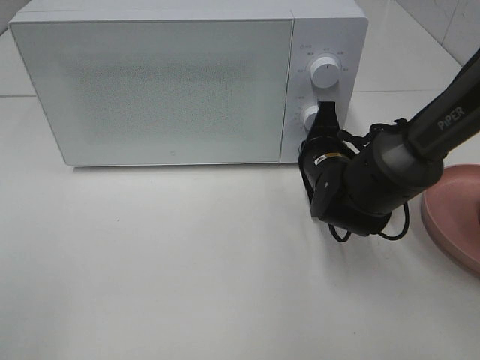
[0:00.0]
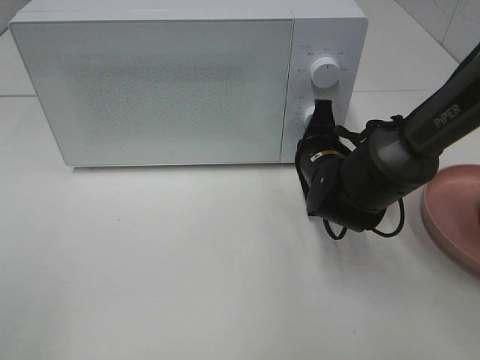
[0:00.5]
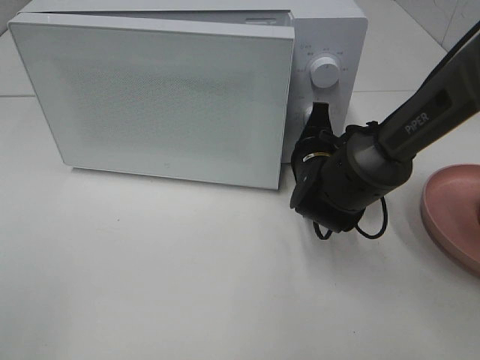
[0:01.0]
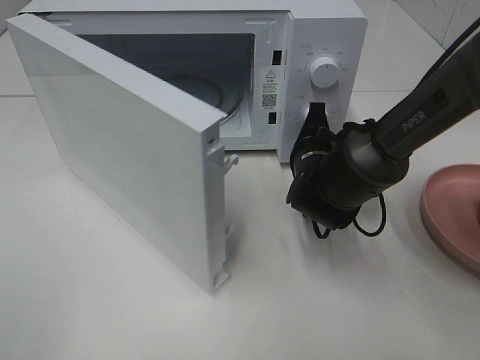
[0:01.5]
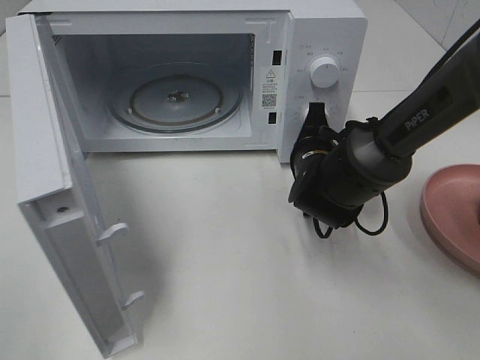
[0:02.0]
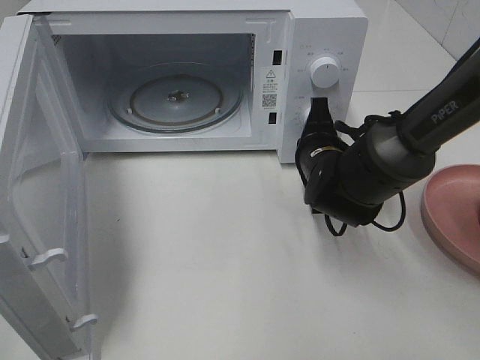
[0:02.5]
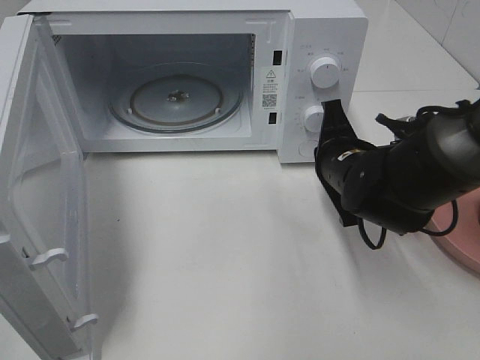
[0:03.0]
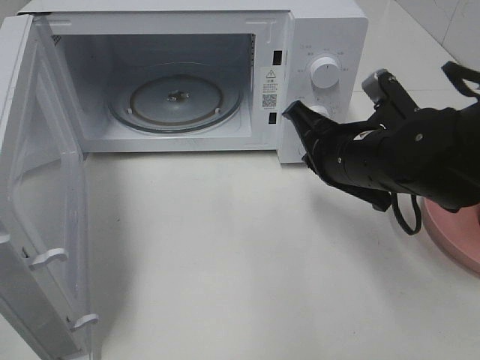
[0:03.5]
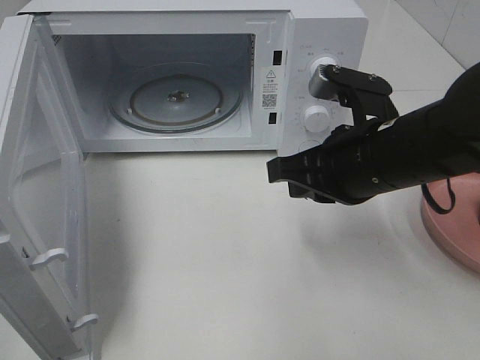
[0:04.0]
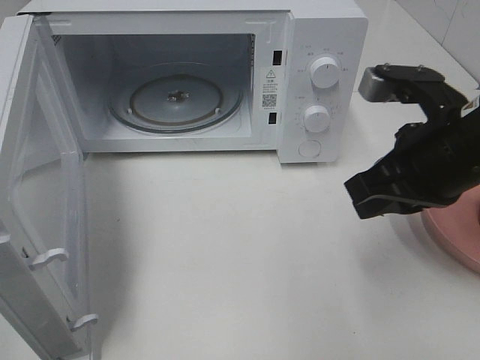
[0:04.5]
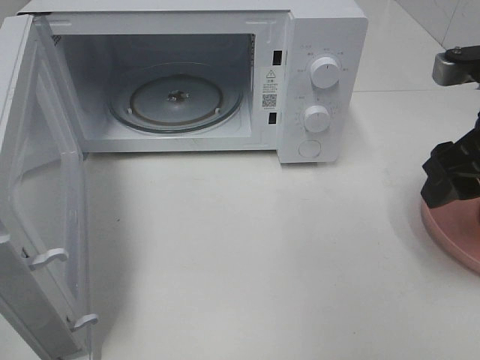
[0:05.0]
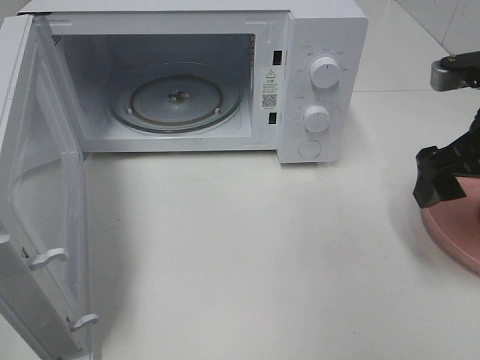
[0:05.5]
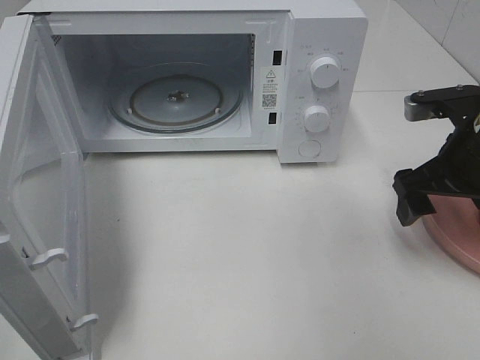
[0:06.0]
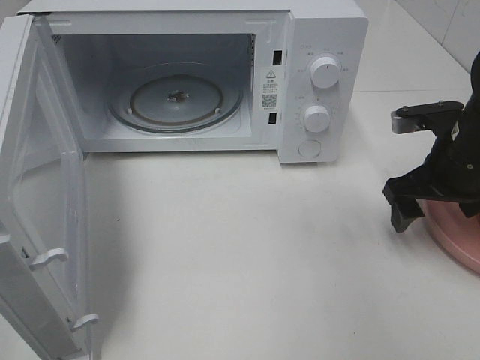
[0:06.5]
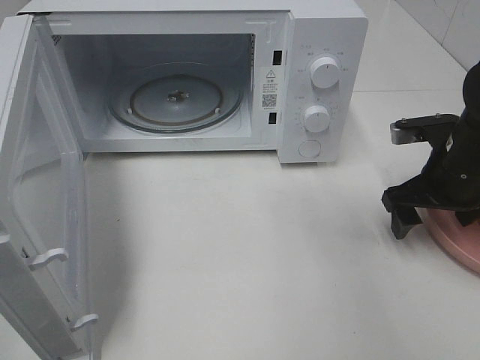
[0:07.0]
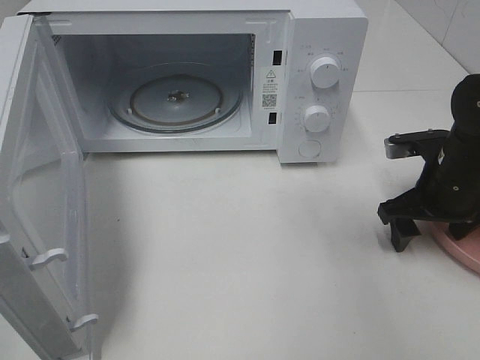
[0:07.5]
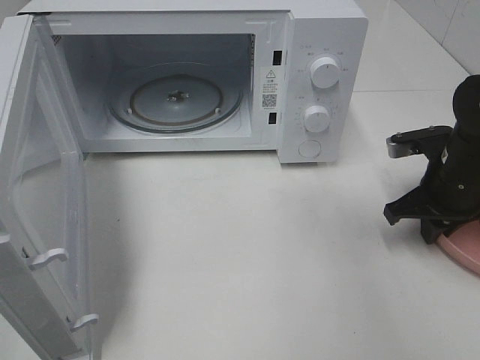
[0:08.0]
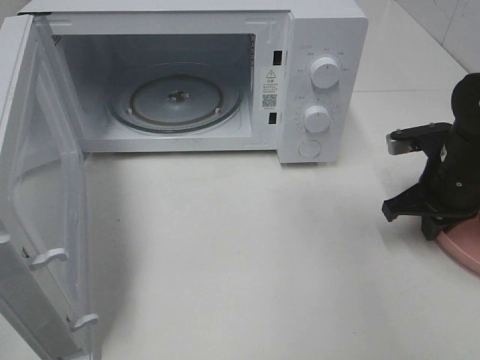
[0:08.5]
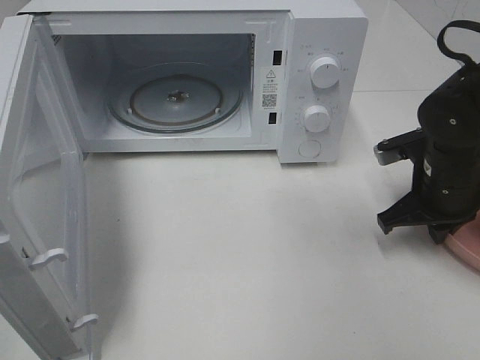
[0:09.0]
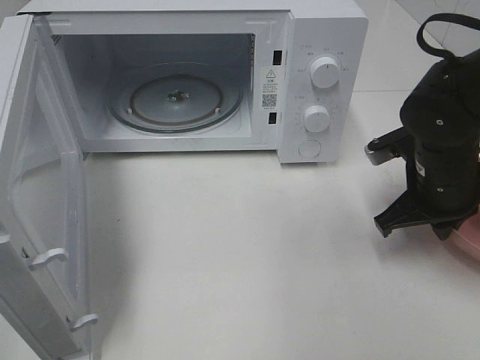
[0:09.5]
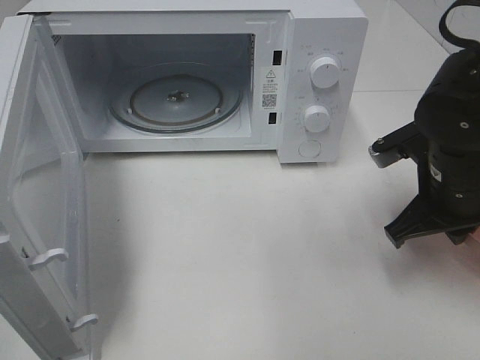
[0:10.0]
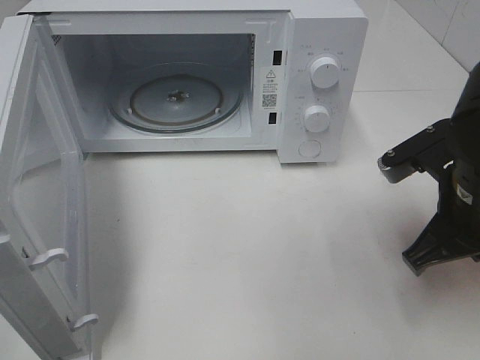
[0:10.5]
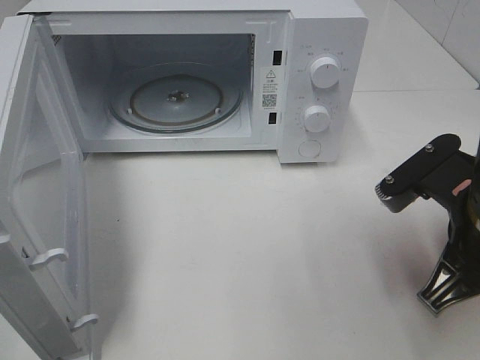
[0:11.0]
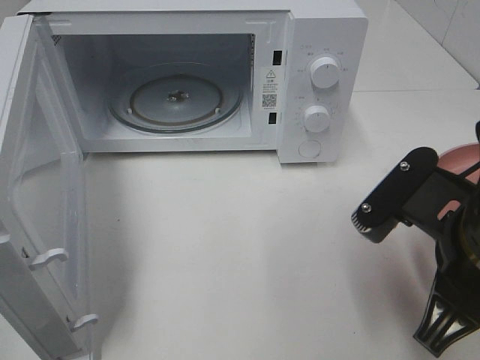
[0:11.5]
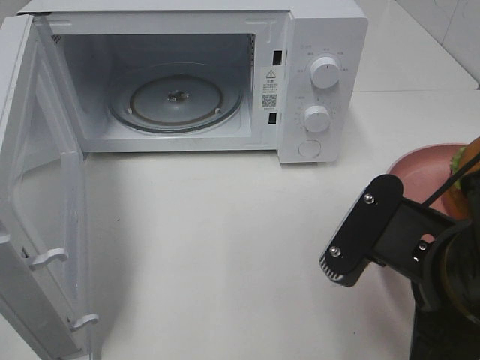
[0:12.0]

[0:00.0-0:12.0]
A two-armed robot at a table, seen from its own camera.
Task of the whole recording: Heat the burger.
Step, 0.0 to 2.5 s: Right hand: press the switch.
Step, 3.0 to 8.0 s: Right hand: grab the plate with the hamburger.
2.0 to 4.0 s: The right gripper shifts roughly 15 cm upward and backward.
4.0 to 6.0 s: The right gripper is displaced to the right by roughly 10 cm, and opens.
6.0 to 8.0 s: The right gripper goes some 5 cm downward, and closes.
8.0 to 10.0 s: The right gripper moves to the left and backward, some 5 cm.
10.0 to 12.0 s: The right gripper shifts some 15 cm backward and to the left.

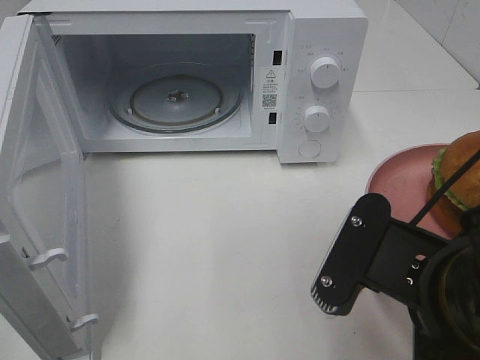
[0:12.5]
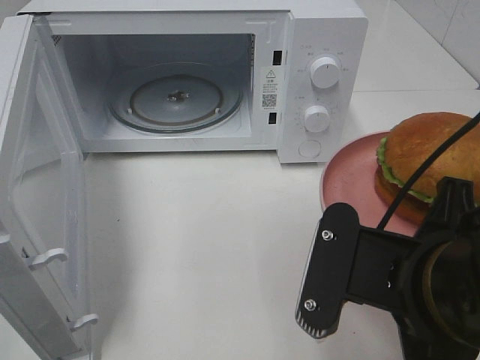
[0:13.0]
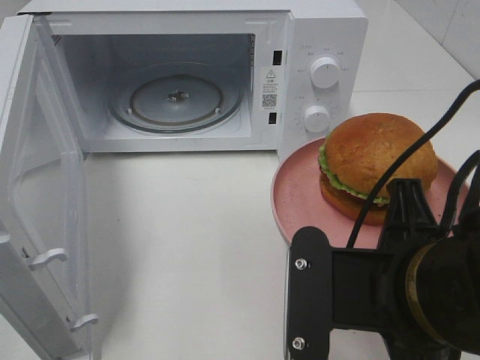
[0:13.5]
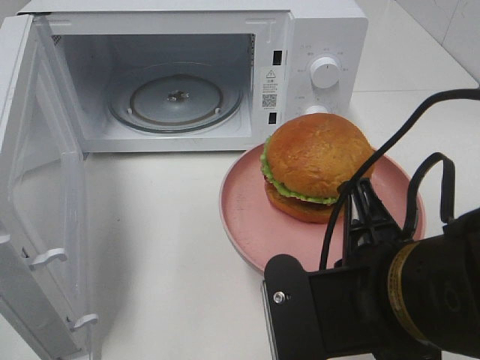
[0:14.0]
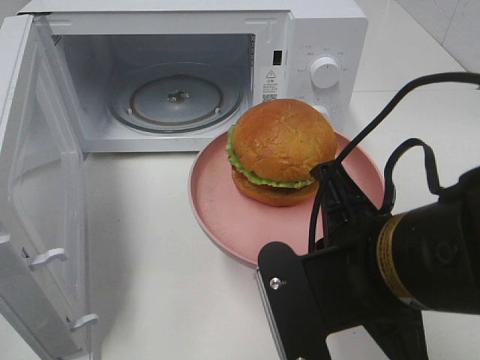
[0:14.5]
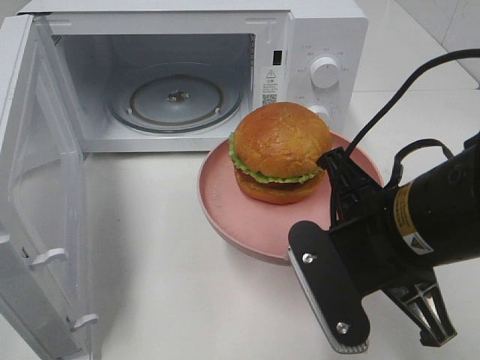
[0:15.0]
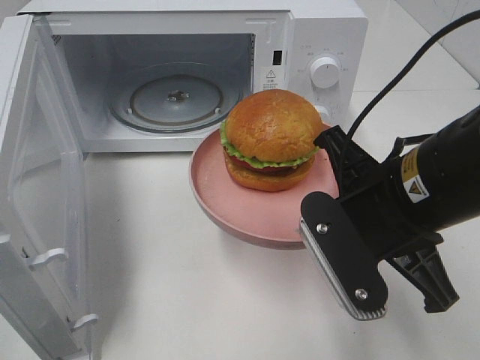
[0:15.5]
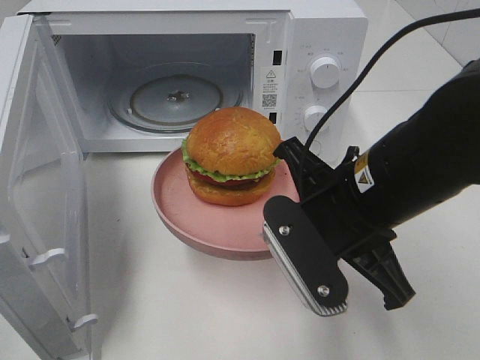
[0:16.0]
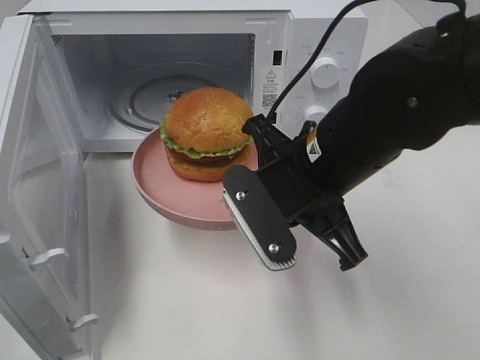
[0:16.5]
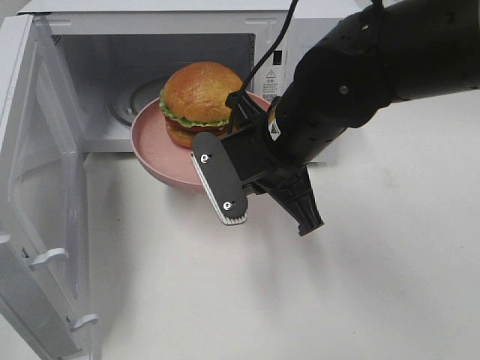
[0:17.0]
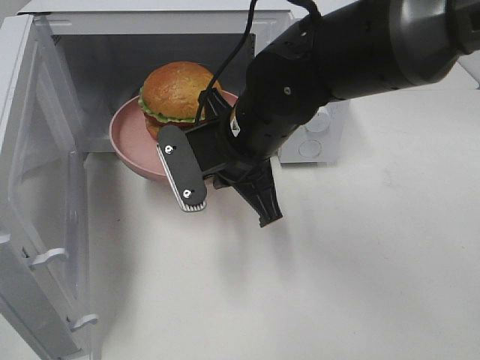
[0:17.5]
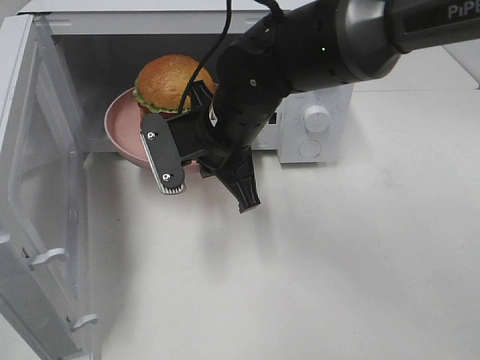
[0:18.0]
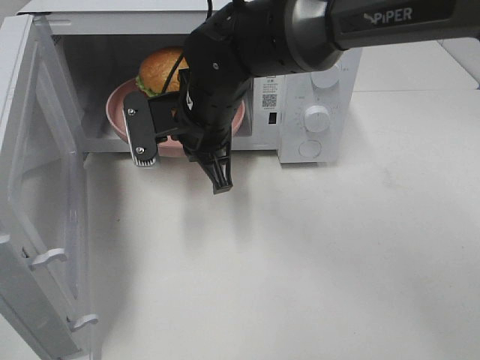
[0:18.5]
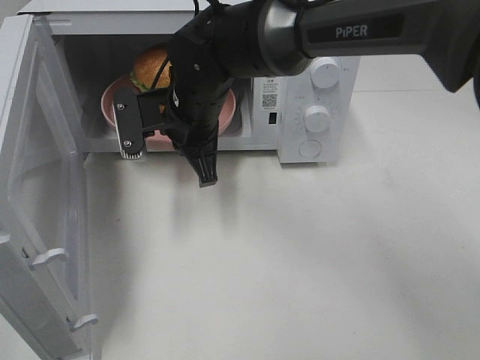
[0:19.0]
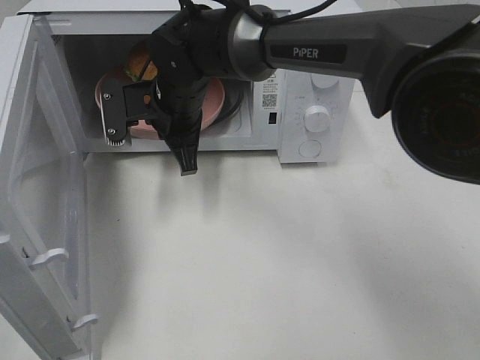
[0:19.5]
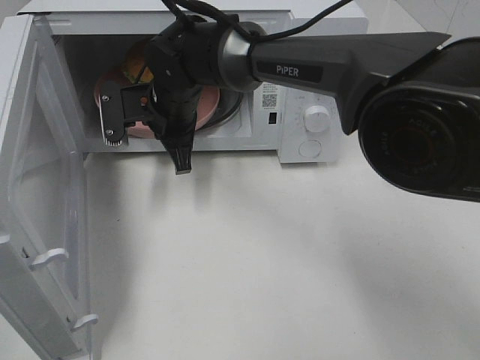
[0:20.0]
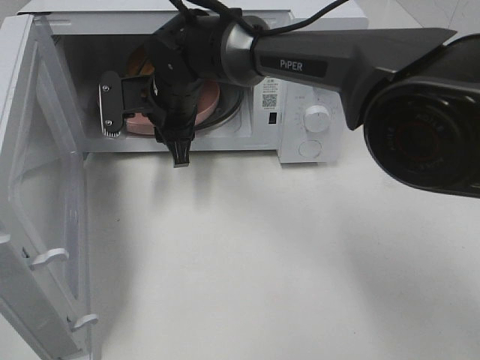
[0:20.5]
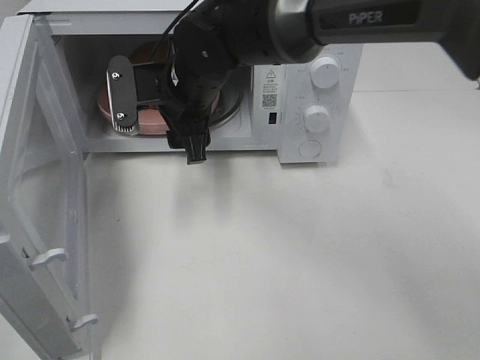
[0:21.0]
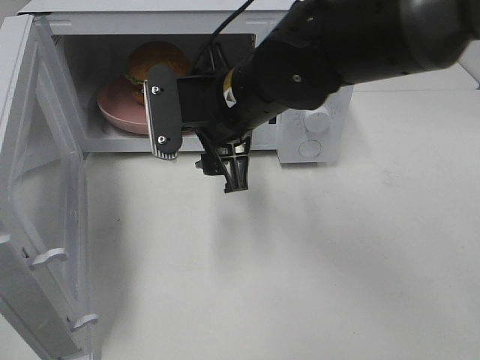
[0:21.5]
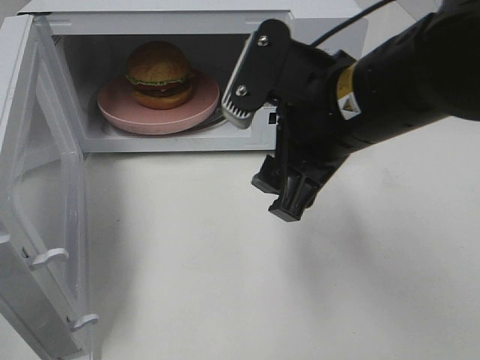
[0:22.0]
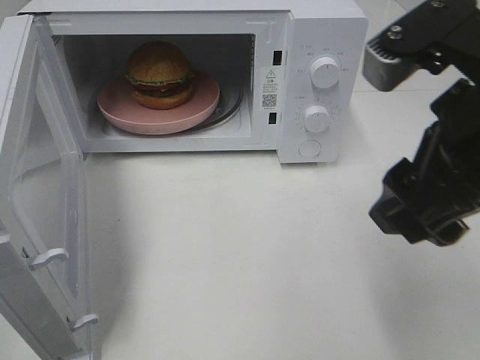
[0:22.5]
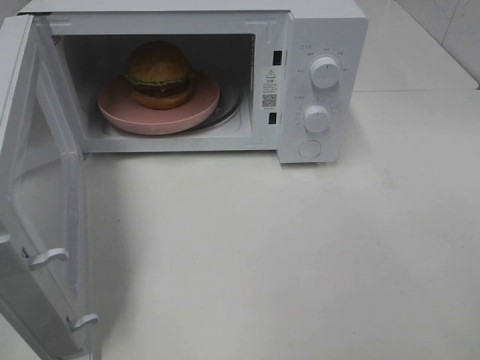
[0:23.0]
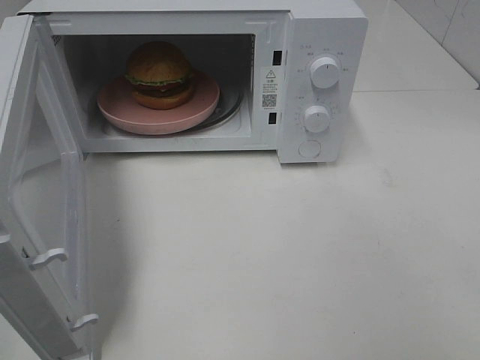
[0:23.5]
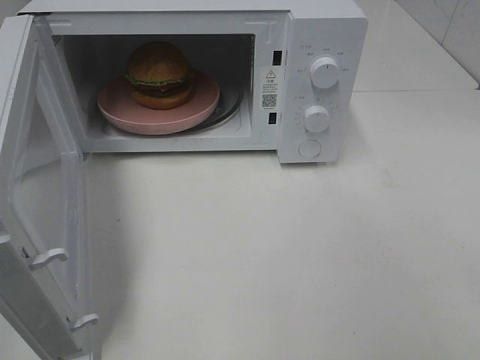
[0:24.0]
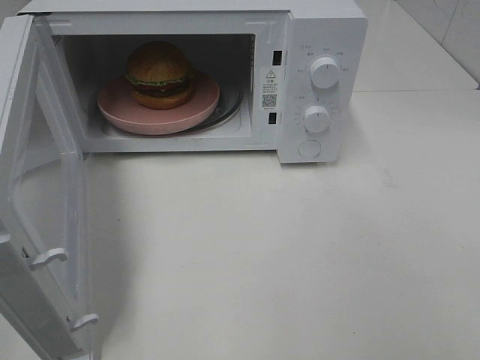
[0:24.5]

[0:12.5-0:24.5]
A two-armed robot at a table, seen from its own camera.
Task of the whole recording: Heat the burger.
Step, 12.5 to 20.5 s: Right hand: place the plate in the microwave.
14.5 to 16.5 s: The right gripper shifts some 10 cm forward.
16.5 to 18.5 s: The right gripper shifts roughly 15 cm forward and to the left.
18.5 to 20.5 s: The right gripper travels forward by approximately 5 cm, and opens.
20.5 to 22.5 s: The right gripper shifts approximately 40 cm backward, to the right and upward.
22.5 to 24.5 s: The right gripper is displaced backward and to the right by roughly 20 cm.

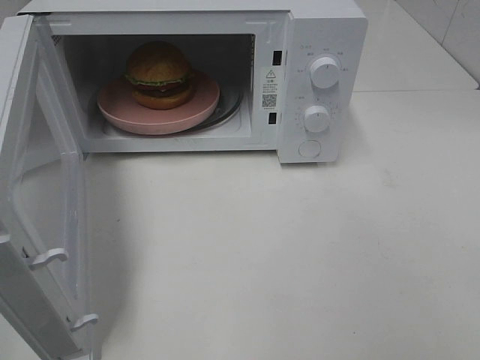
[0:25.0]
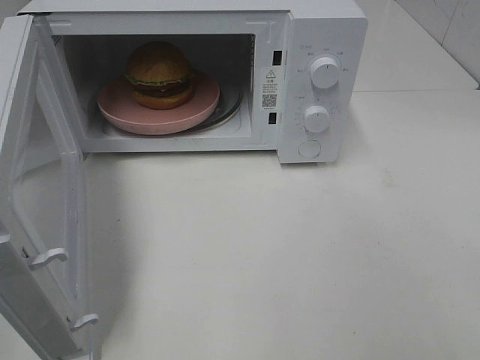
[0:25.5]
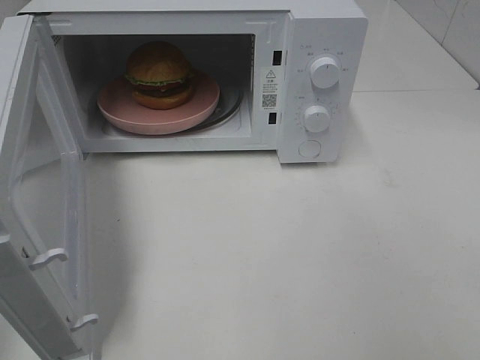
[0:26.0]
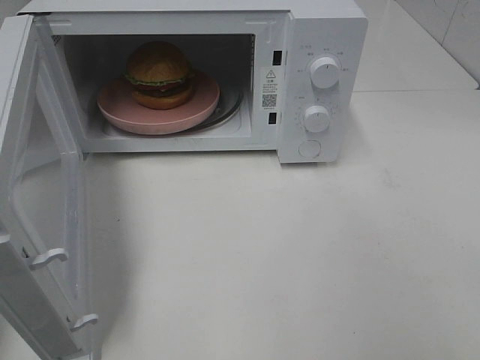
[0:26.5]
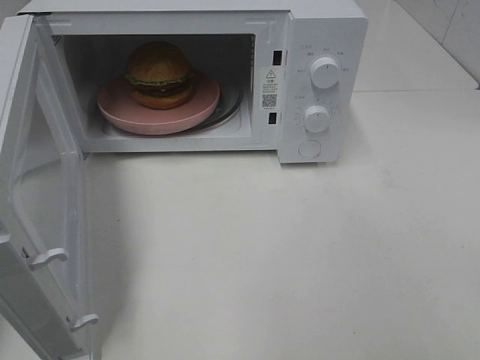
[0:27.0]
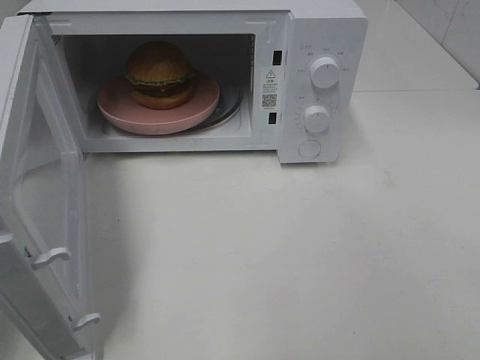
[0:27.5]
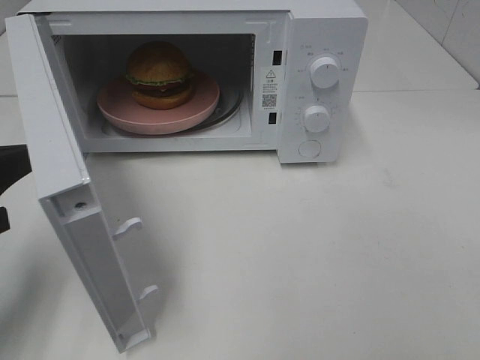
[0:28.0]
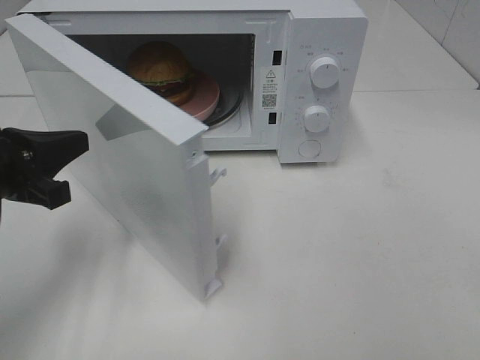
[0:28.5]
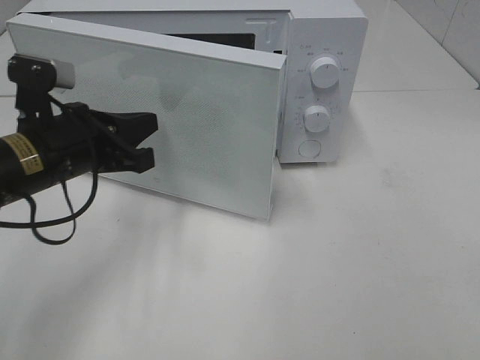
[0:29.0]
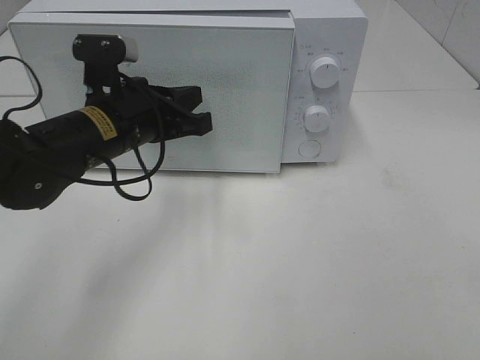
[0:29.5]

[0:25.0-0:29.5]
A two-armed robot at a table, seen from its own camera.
Task of the whole recording: Heat the burger.
27.0 to 29.5 s: The left gripper moves to the right and forward, roughly 30 cm.
